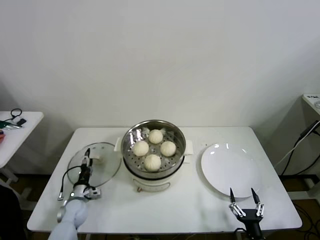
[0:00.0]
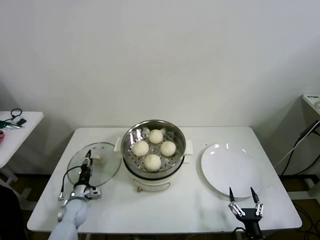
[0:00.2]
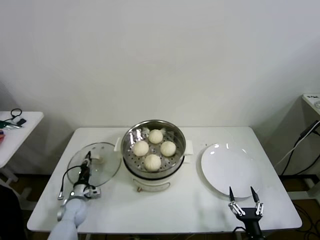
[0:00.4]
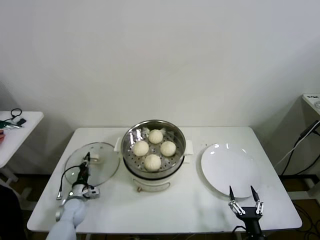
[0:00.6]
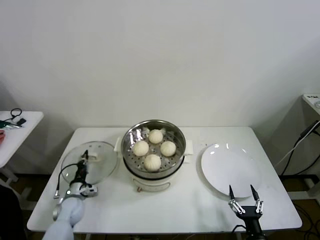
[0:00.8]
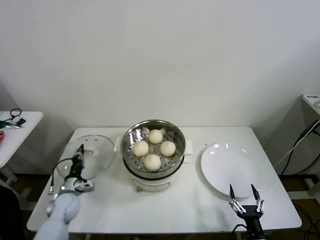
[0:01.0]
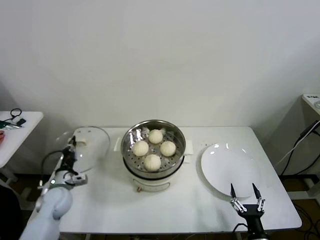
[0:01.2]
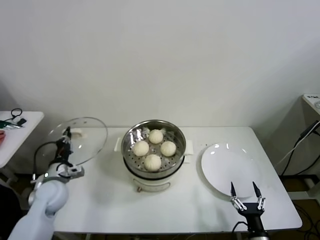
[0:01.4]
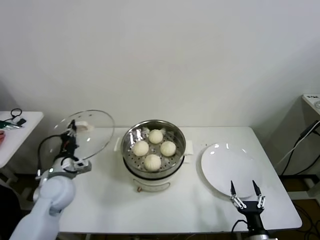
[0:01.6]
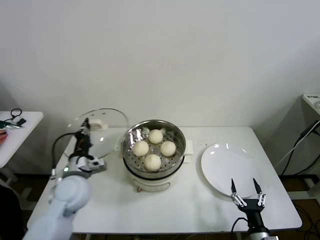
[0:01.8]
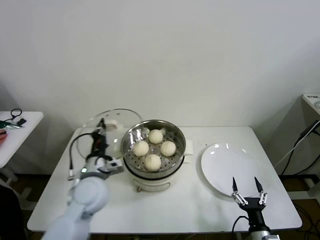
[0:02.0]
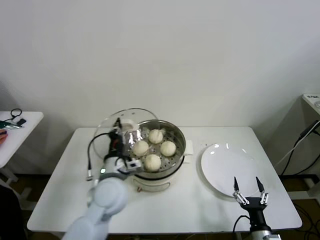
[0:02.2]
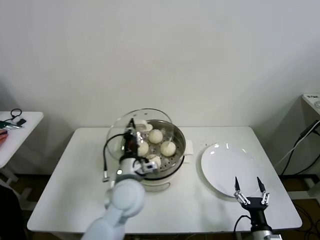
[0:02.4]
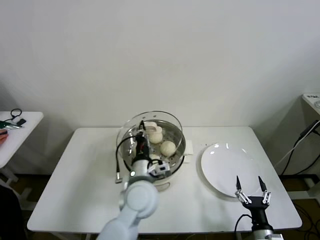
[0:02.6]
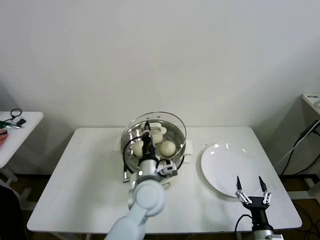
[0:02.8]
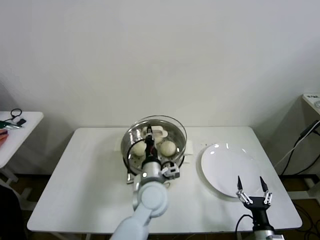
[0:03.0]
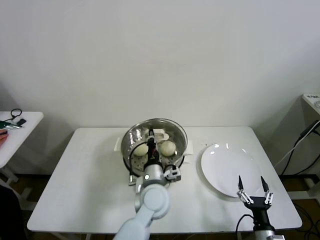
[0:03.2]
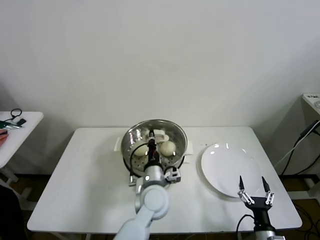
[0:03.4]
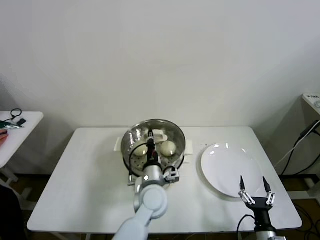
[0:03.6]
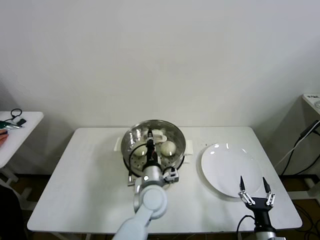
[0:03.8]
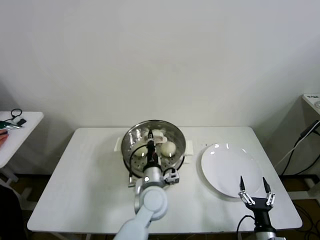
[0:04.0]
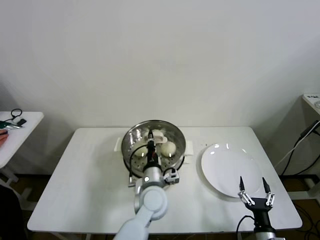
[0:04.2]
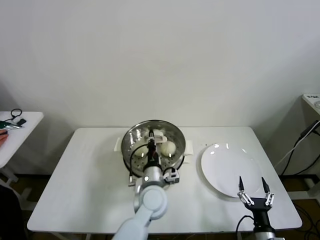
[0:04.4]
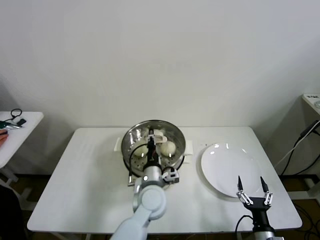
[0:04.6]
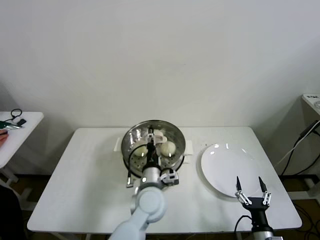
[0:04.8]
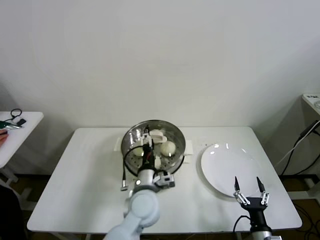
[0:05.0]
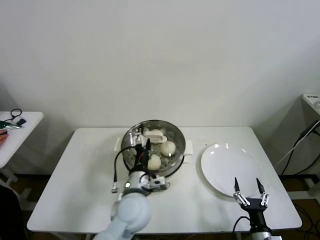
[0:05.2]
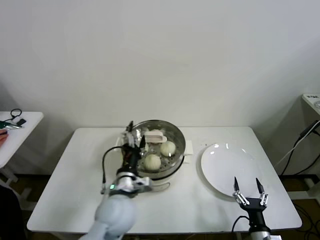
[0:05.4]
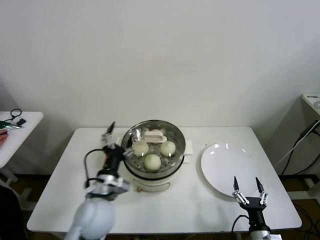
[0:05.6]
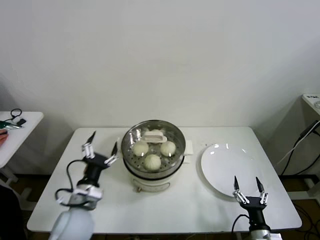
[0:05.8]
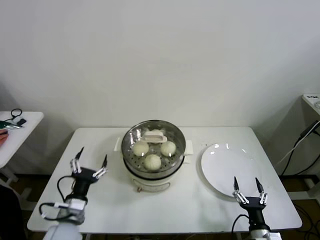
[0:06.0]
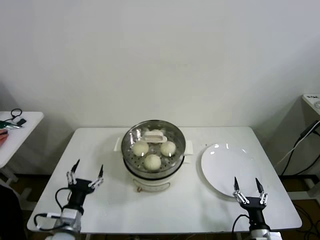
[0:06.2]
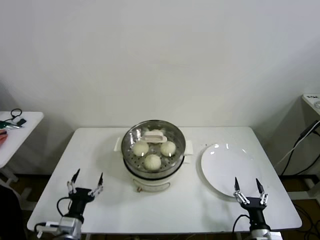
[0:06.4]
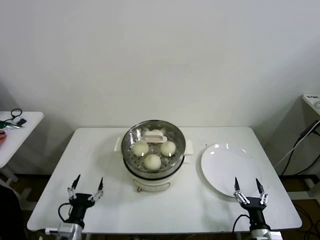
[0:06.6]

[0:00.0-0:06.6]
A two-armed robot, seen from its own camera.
Step, 0:00.6 to 0:04.4: Place the pot lid on the steamer with left gripper.
0:00.0 to 0:01.6: The left gripper goes roughly 20 cm upward, and closes.
0:01.6 to 0:03.2: The left gripper travels to the right by roughly 30 cm.
0:03.2 to 0:05.0: The left gripper opens.
0:05.0 to 0:06.6: The left gripper is displaced to the left, backward and downward by some 30 cm.

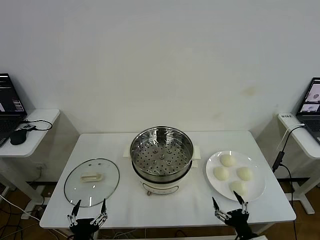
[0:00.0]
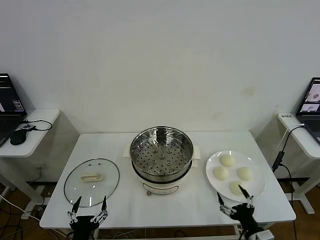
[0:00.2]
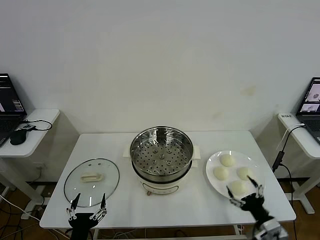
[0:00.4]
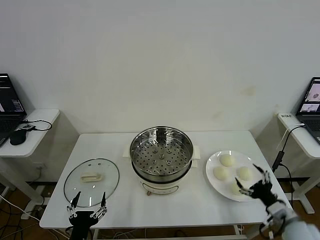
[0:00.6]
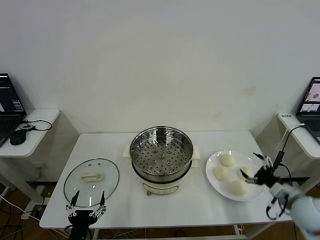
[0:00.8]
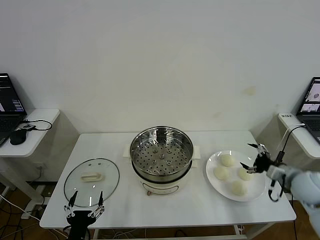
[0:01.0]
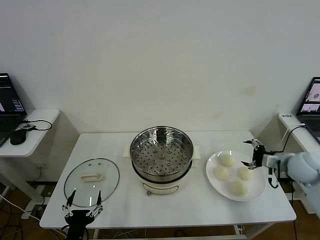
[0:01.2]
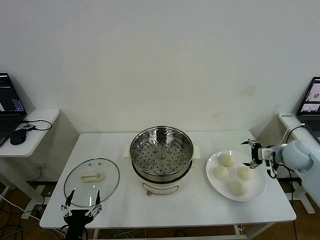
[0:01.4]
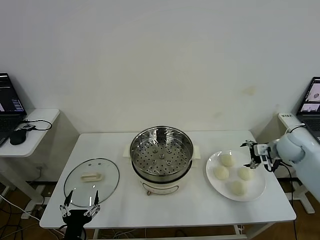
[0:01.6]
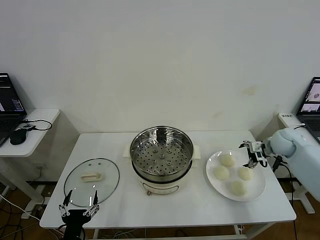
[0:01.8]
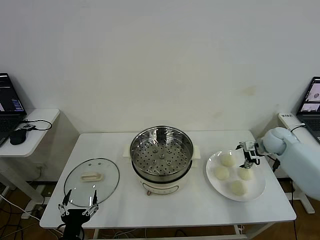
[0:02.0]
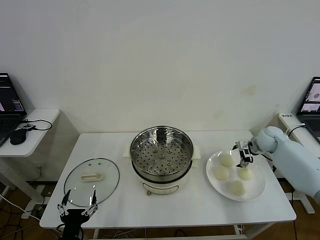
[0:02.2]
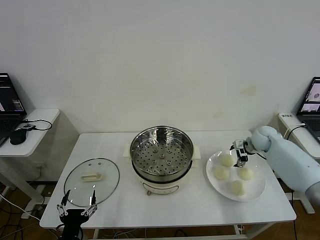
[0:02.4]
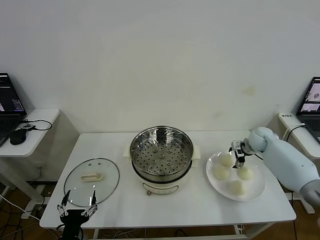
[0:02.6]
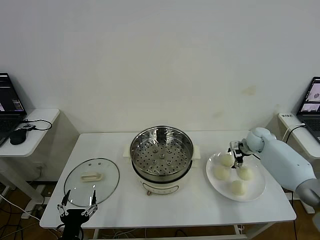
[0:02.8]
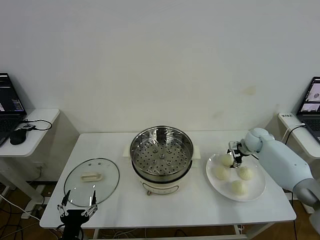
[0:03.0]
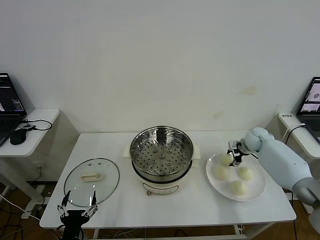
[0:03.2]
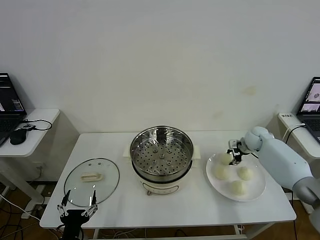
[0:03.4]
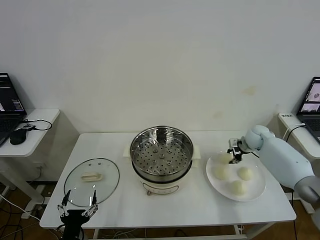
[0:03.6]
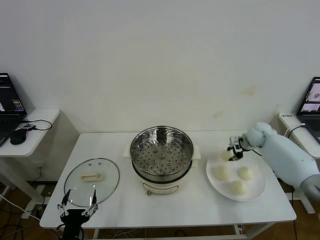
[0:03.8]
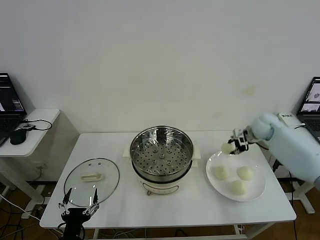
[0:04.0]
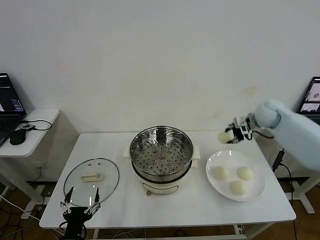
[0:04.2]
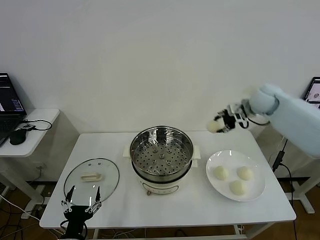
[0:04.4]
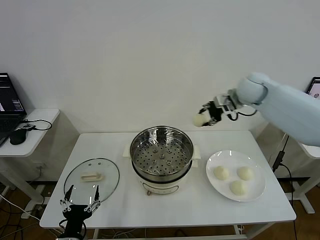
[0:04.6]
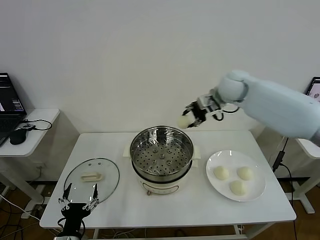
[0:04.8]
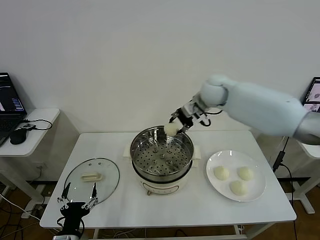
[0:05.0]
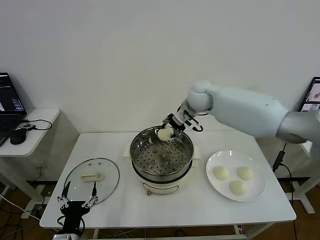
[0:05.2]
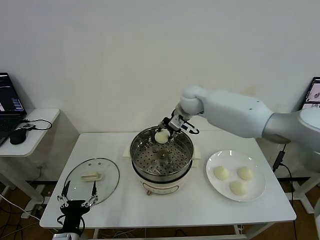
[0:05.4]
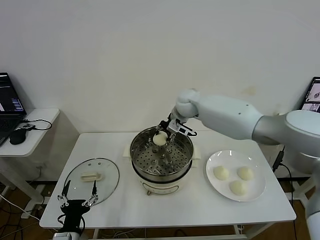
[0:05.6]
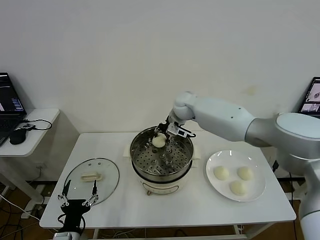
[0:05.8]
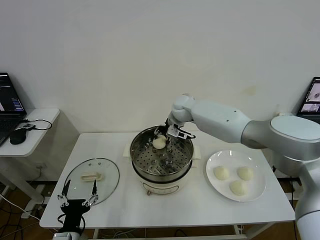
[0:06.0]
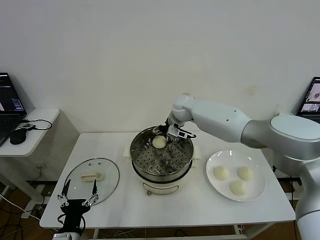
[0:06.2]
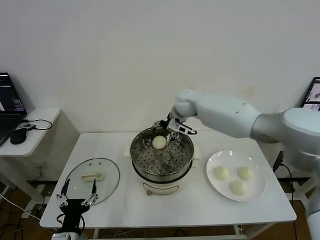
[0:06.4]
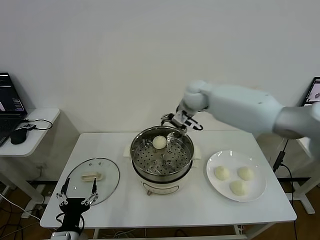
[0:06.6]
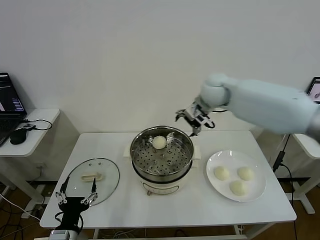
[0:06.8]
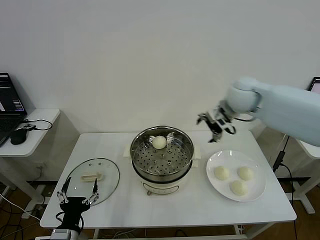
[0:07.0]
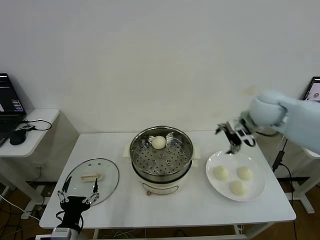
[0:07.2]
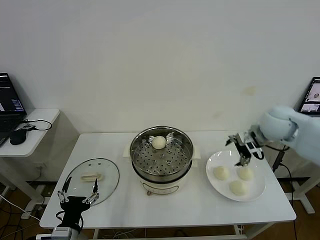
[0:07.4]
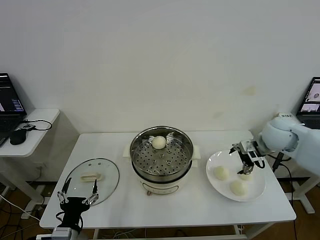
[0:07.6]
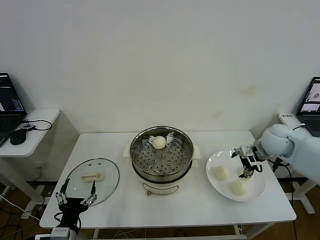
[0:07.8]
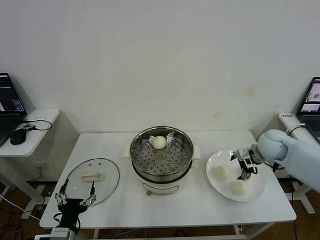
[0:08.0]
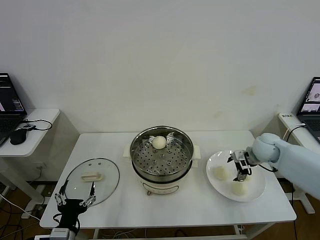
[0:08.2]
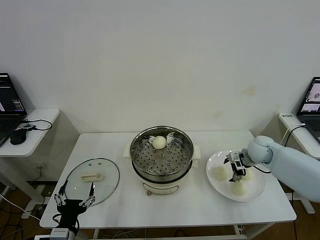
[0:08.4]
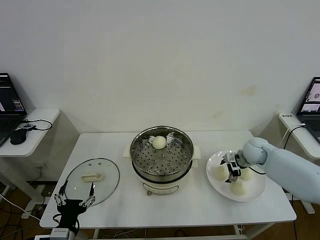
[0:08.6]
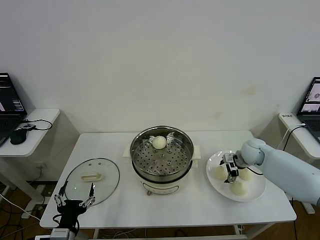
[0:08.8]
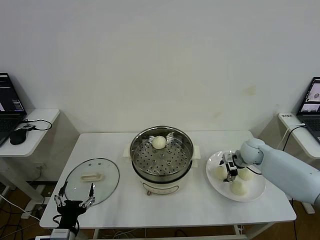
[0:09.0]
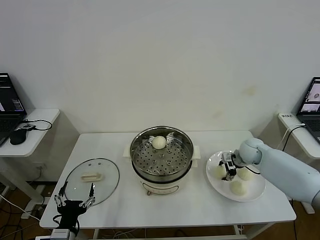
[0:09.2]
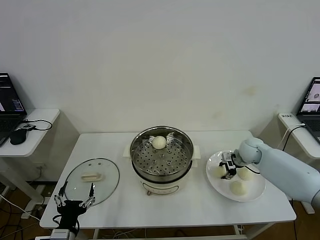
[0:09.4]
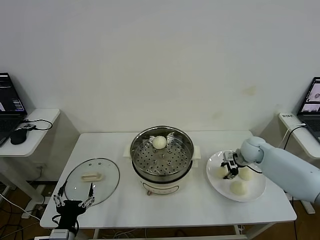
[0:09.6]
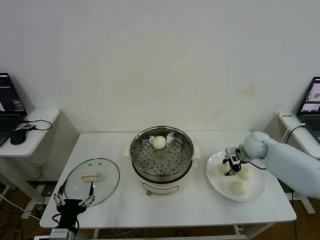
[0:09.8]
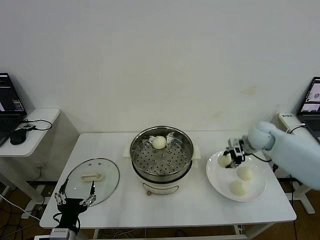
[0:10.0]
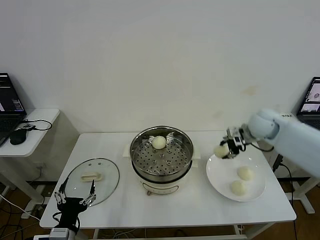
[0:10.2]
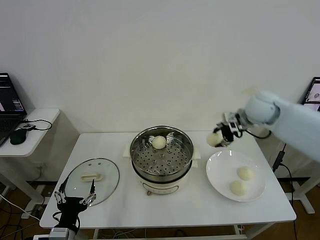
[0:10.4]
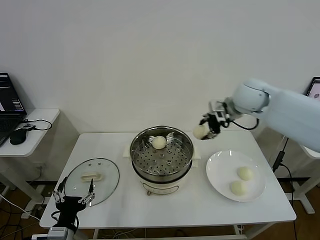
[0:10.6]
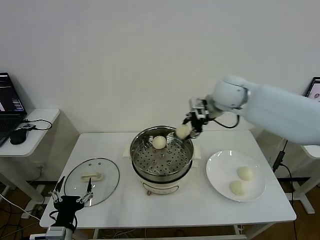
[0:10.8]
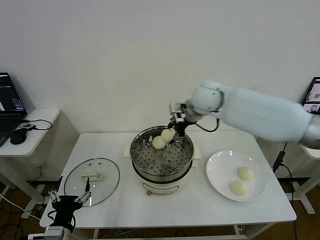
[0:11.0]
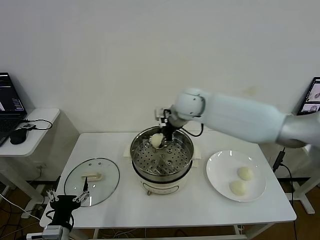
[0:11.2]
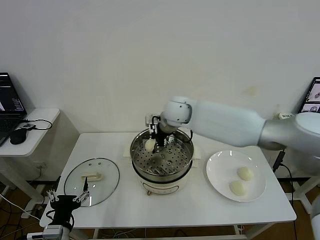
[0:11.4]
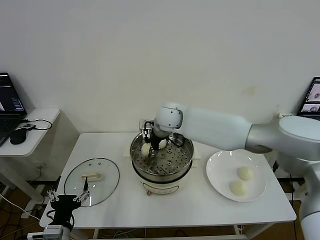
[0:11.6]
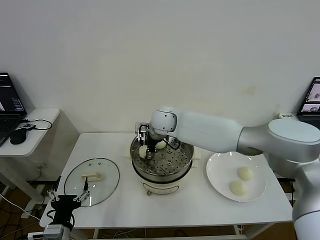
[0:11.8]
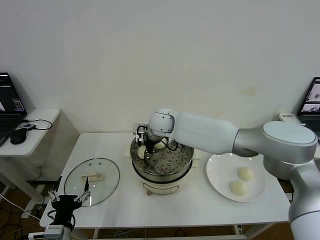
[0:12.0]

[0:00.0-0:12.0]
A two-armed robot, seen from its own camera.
Step, 0:00.0 to 0:03.2: Grasp the baozi in the plate with right gripper.
Step, 0:03.4 to 0:06.2: Place the baozi on the steamer with right gripper.
Step, 0:06.4 to 0:09.2: Grasp the baozi in the plate with right gripper.
0:01.6 to 0:03.0: The right gripper moves forward and downward, some 10 cm, and closes its fingers.
0:03.0 to 0:04.4: The right gripper heads upward, covering roughly 25 cm, and closes.
0:04.4 to 0:06.0: The right gripper shifts roughly 25 cm to the left and downward.
0:06.0 to 0:07.6: The right gripper shifts roughly 30 cm to the right and backward, and opens up.
0:07.6 to 0:09.0: The right gripper moves downward and forward, some 15 cm.
0:09.0 to 0:10.4: The right gripper moves upward, some 25 cm, and closes up.
0:10.4 to 0:12.0: The right gripper is displaced to the left by about 30 cm.

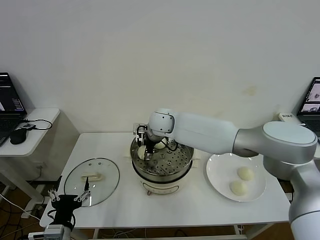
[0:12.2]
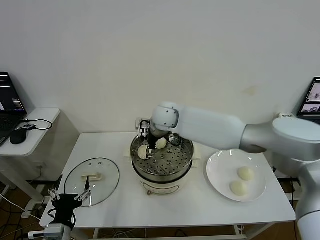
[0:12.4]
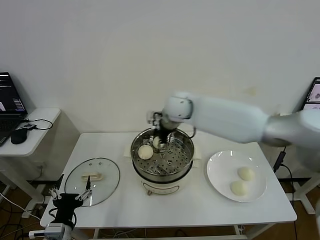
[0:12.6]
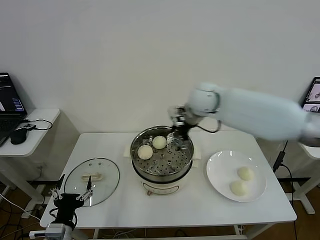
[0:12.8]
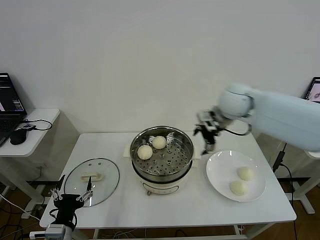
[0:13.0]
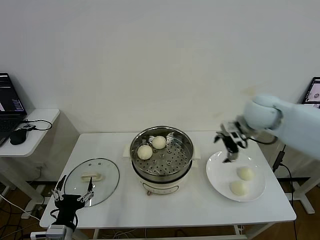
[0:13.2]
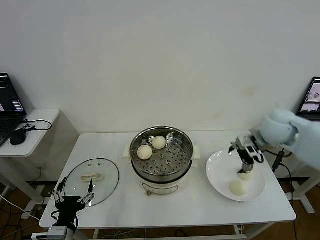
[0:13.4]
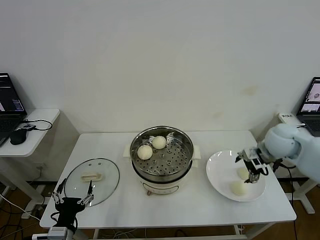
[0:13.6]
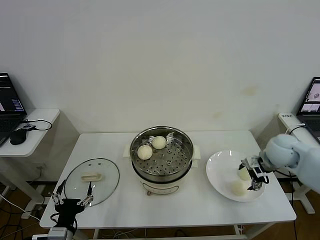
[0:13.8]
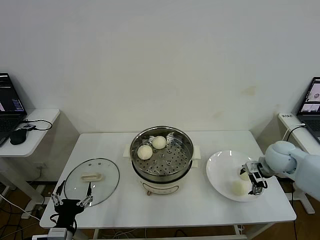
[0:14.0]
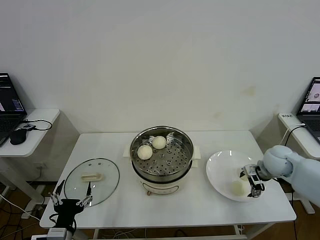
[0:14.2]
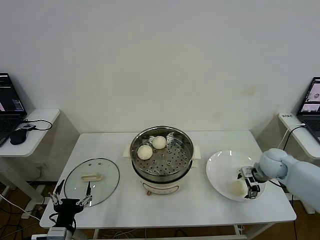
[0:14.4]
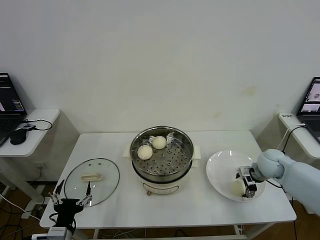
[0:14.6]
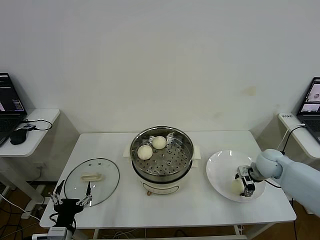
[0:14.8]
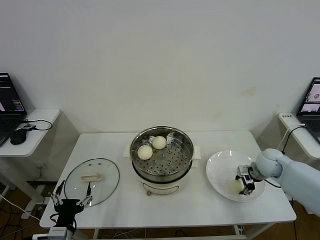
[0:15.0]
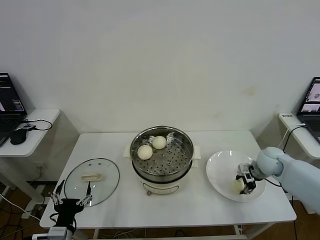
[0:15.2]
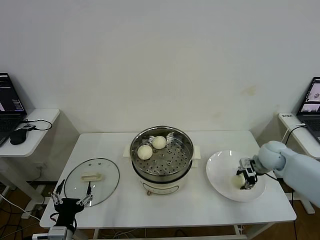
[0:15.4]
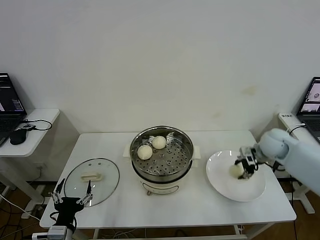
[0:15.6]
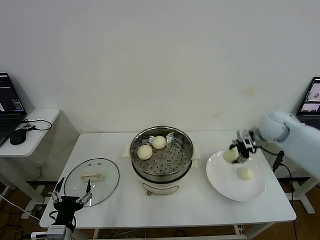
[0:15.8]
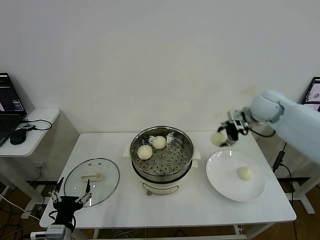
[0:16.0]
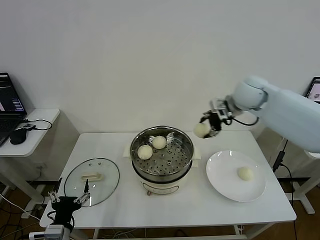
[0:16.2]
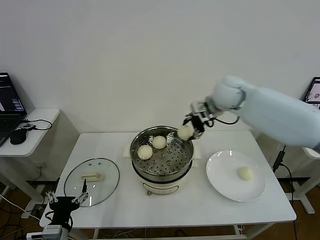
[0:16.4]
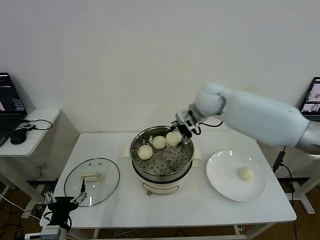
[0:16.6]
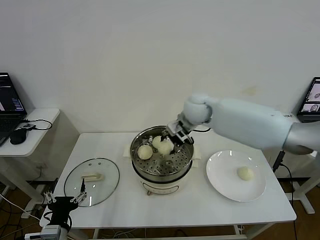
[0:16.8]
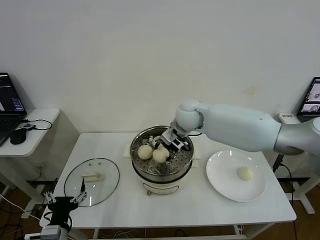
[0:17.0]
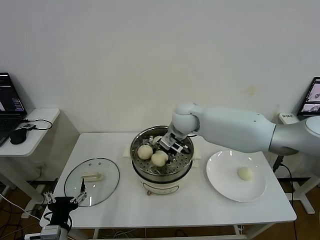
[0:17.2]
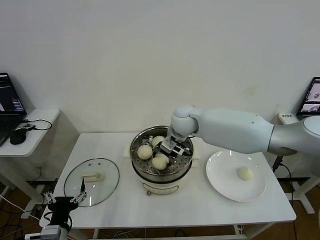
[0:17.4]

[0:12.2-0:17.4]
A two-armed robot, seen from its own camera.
Step, 0:12.4 to 0:15.0: Grasp the baozi in the plate with right gripper.
0:12.2 to 0:14.0: The right gripper moves to the right, about 40 cm.
0:14.0 to 0:15.6: The right gripper heads forward, covering roughly 5 cm, and closes.
0:15.6 to 0:17.4: The right gripper shifts about 30 cm to the left.
